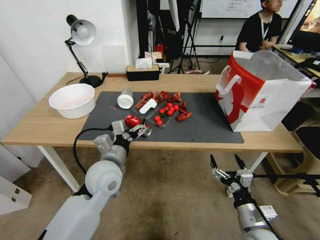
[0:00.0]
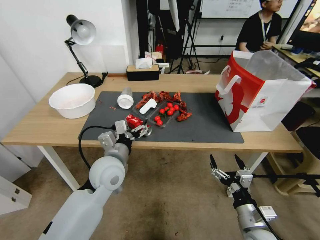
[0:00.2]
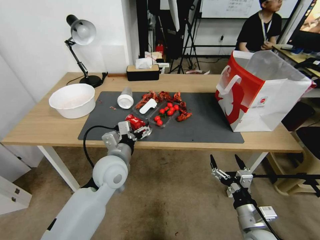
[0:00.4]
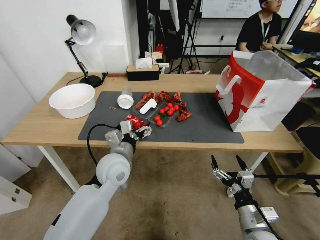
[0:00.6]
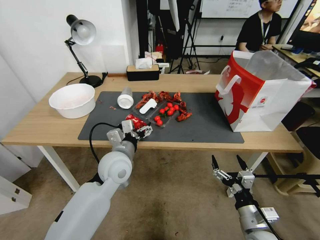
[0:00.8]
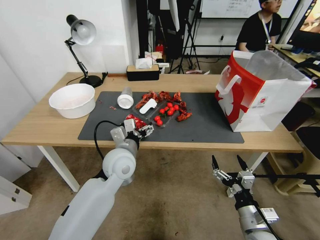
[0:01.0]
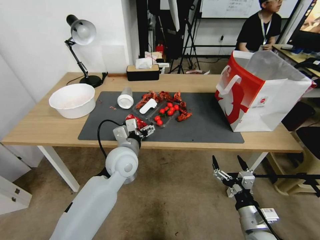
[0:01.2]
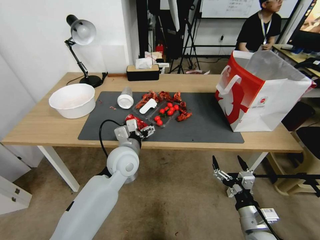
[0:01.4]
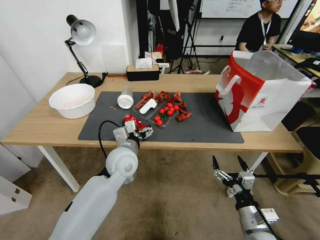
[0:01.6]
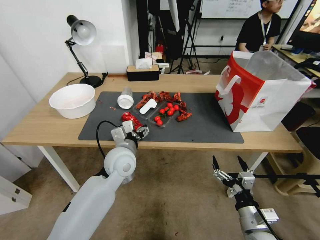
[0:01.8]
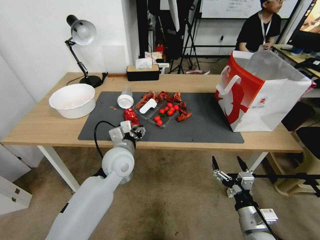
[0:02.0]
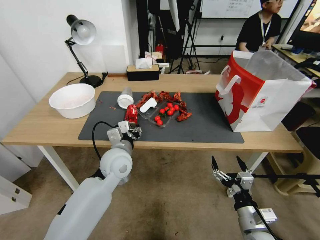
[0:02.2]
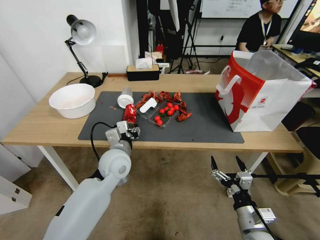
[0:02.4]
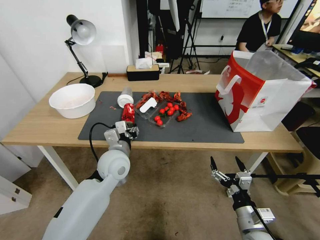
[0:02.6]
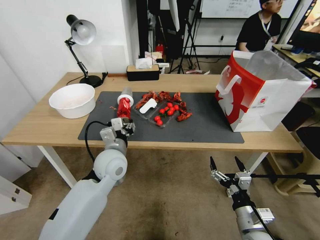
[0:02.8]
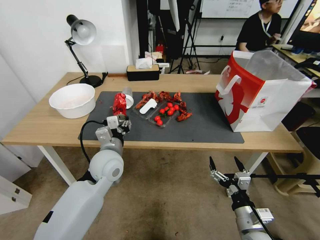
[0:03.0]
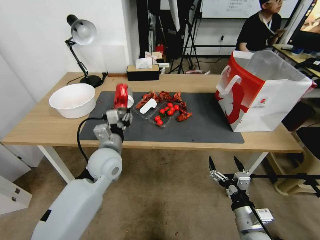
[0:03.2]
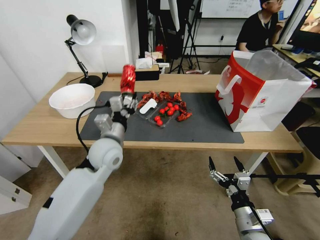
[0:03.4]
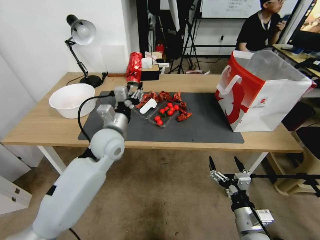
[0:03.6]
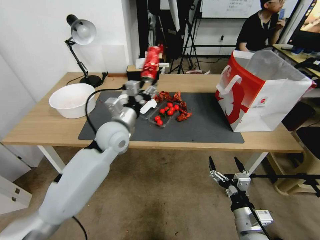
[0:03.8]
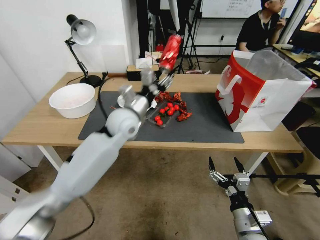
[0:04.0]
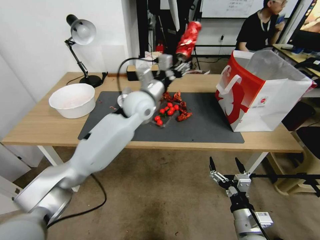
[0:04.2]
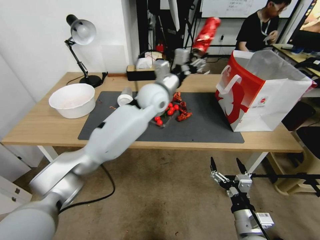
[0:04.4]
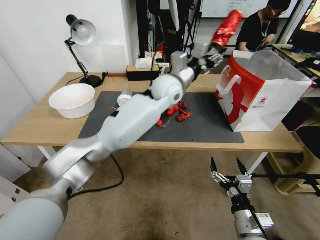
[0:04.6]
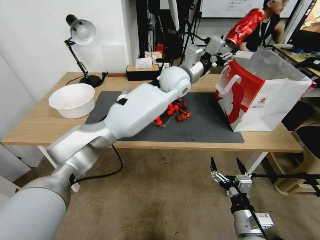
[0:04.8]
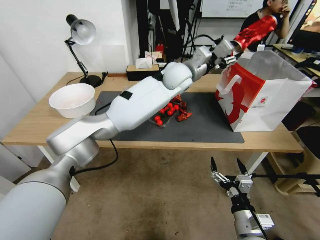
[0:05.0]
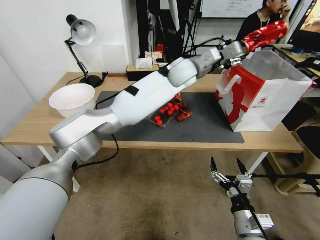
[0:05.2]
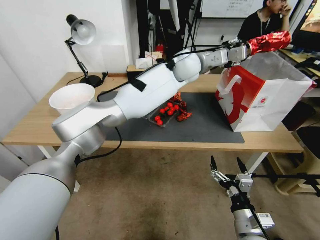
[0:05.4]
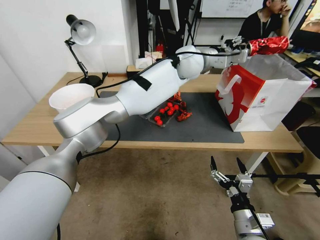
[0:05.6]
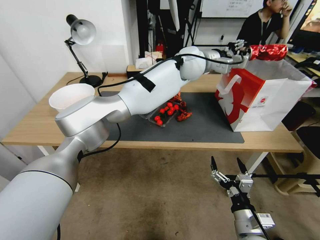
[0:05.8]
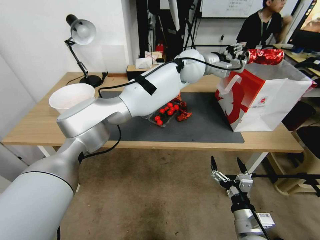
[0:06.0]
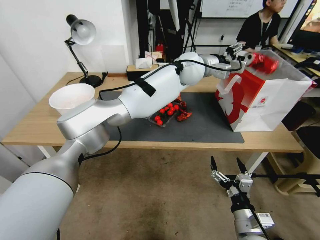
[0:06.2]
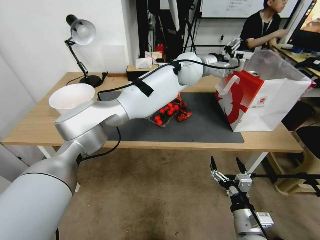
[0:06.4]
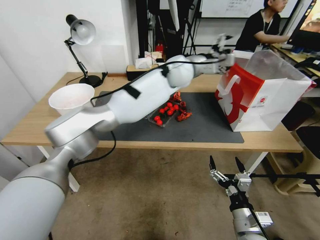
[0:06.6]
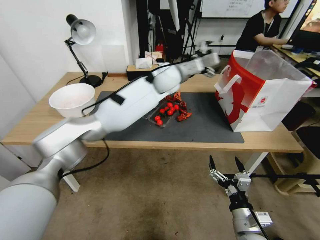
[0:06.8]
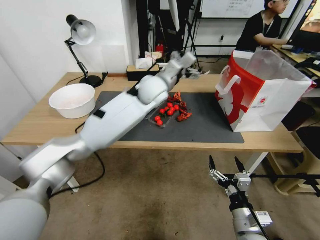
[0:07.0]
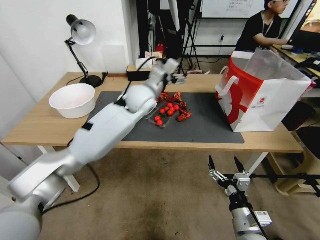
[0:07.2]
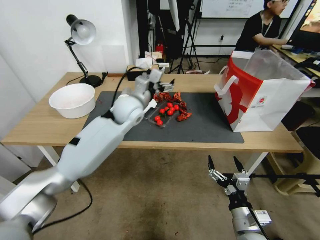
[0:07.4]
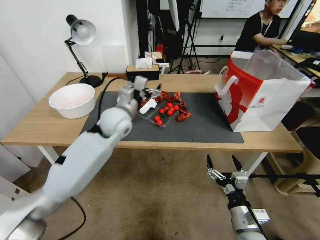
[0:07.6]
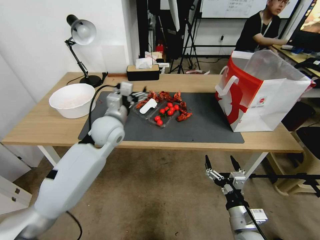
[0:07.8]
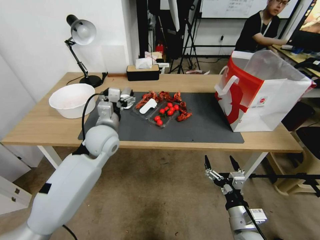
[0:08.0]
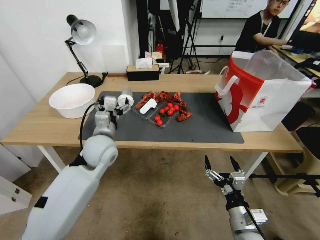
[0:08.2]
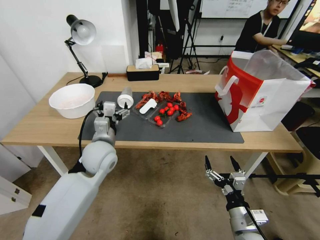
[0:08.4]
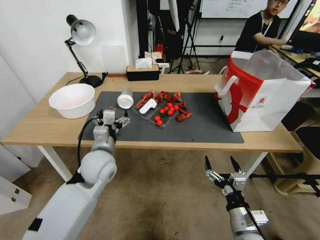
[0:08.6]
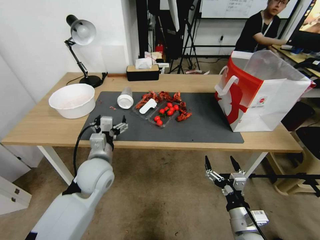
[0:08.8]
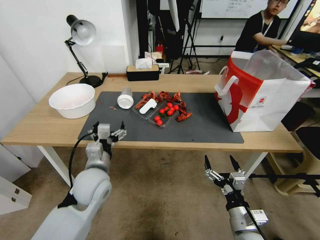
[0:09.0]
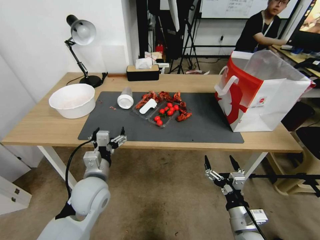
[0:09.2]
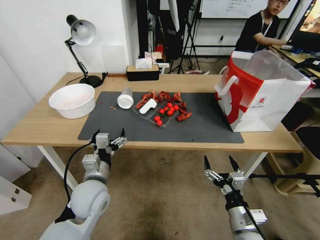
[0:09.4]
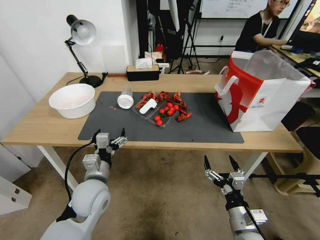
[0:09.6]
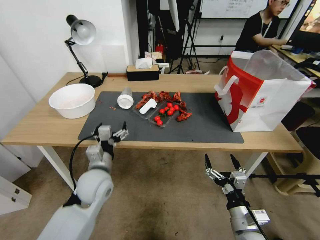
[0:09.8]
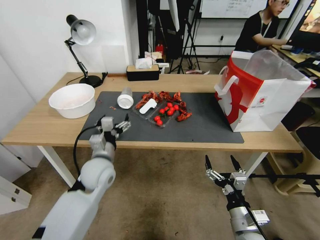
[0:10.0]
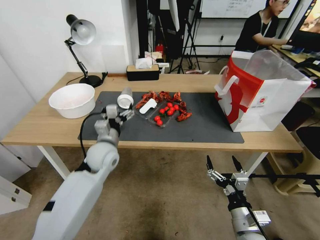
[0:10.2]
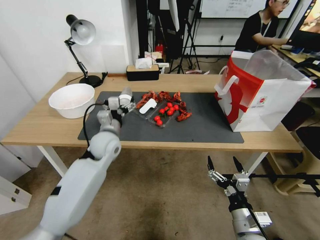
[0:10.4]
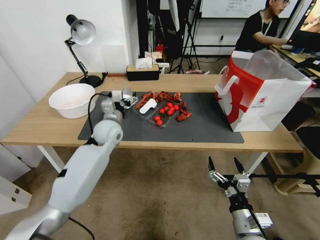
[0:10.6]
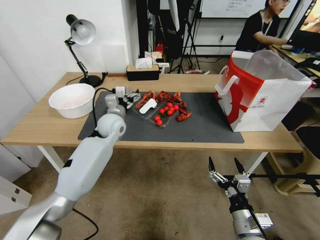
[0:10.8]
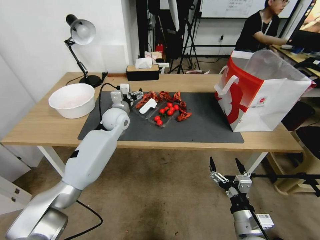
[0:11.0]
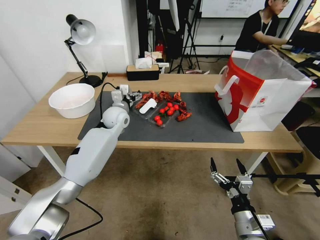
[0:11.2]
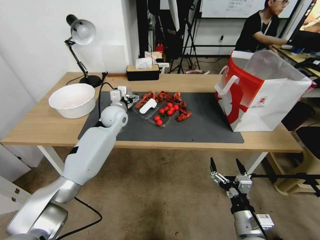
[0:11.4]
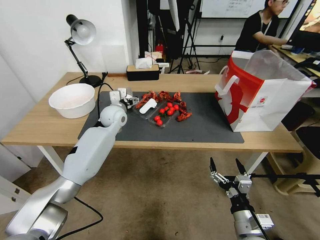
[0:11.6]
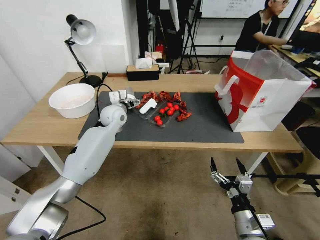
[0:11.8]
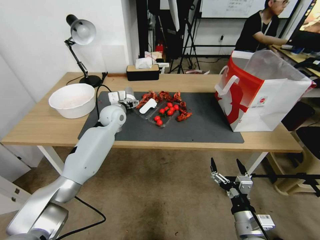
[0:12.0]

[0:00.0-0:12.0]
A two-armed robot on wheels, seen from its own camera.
0:00.0 to 0:01.6: The left gripper travels forward by some 5 cm.
0:01.6 to 0:03.0: The left gripper closes.
0:03.0 to 0:04.4: The left gripper is displaced forward, upward and to the right by approximately 25 cm.
0:04.4 to 0:06.0: The left gripper moves to the right, forward and upward, about 15 cm.
0:06.0 to 0:07.6: The left gripper travels to the left, backward and downward by approximately 30 cm, and opens up.
0:07.6 to 0:09.0: The left gripper is displaced backward and downward by roughly 20 cm.
0:09.0 to 0:10.4: The left gripper is displaced forward by some 10 cm.
0:10.4 to 0:12.0: The left gripper travels forward by about 15 cm.

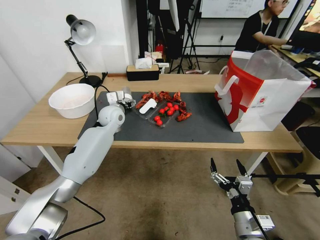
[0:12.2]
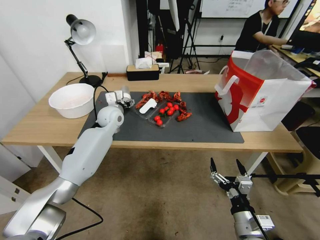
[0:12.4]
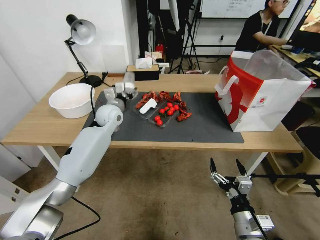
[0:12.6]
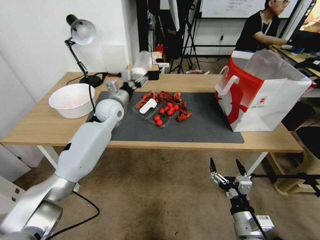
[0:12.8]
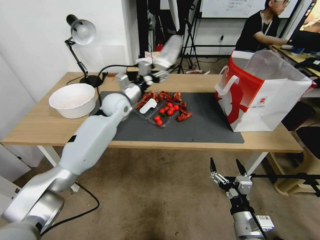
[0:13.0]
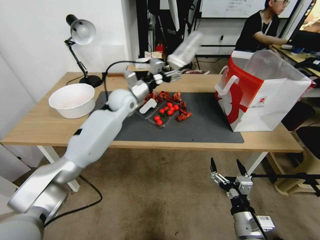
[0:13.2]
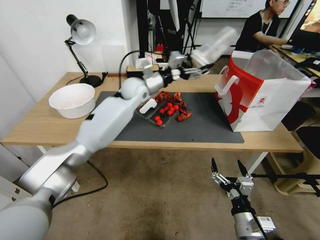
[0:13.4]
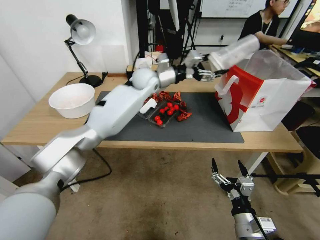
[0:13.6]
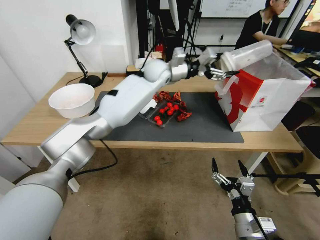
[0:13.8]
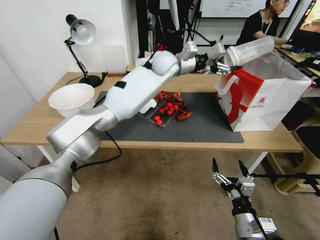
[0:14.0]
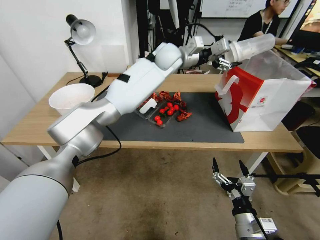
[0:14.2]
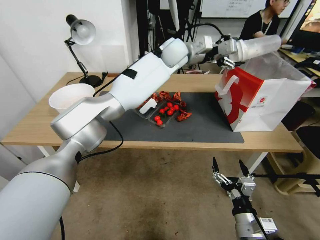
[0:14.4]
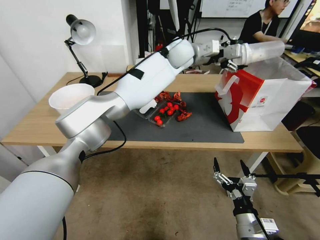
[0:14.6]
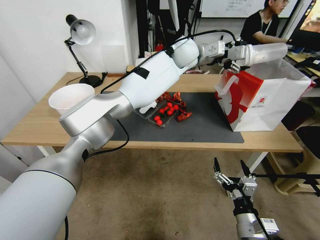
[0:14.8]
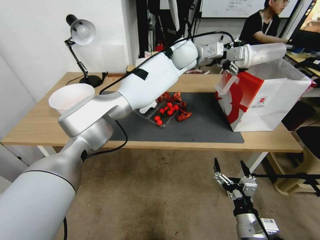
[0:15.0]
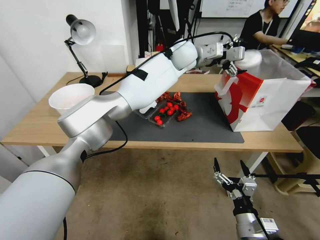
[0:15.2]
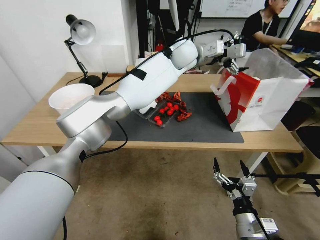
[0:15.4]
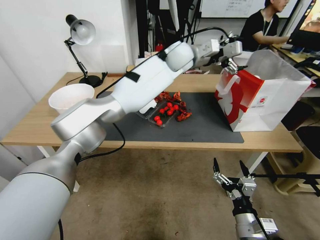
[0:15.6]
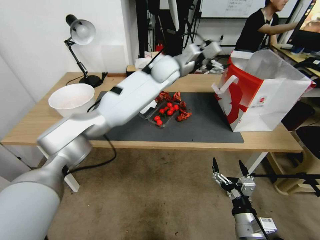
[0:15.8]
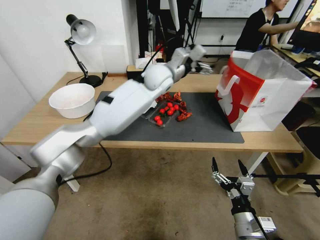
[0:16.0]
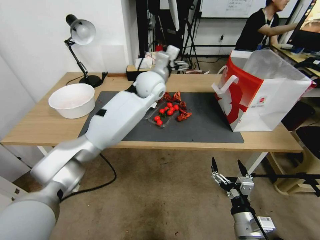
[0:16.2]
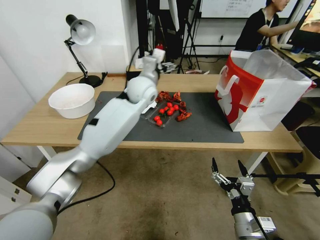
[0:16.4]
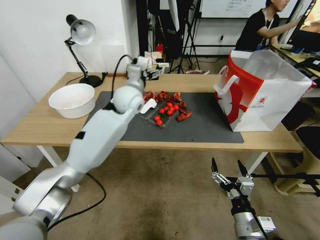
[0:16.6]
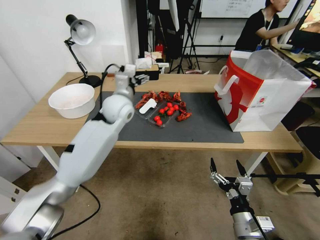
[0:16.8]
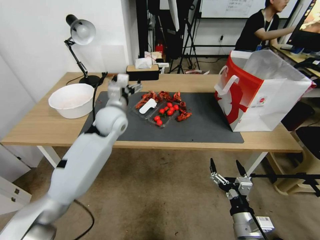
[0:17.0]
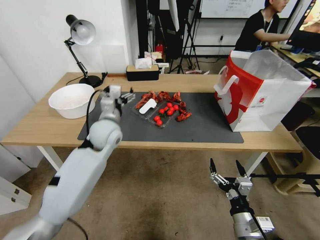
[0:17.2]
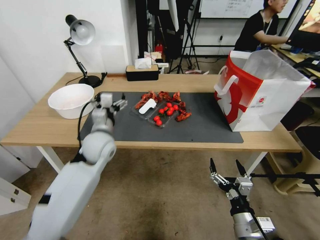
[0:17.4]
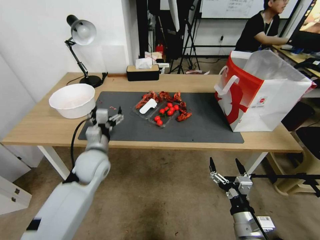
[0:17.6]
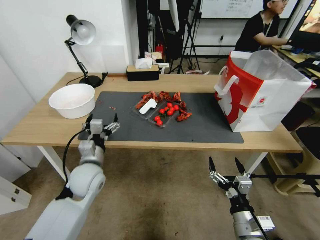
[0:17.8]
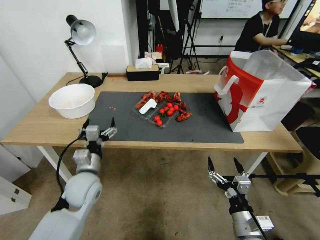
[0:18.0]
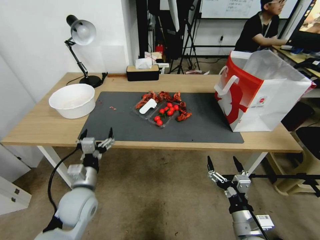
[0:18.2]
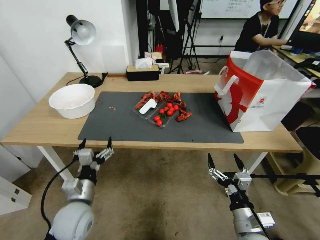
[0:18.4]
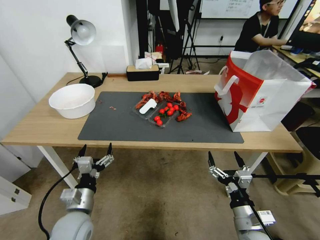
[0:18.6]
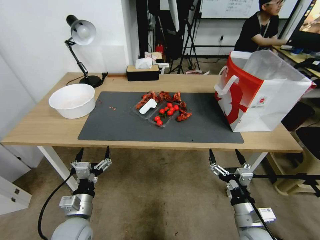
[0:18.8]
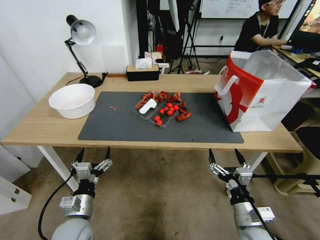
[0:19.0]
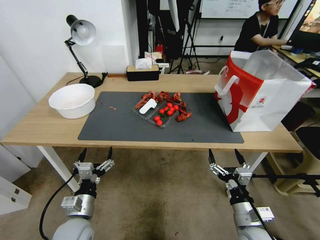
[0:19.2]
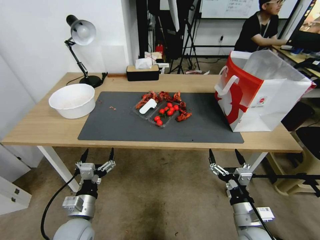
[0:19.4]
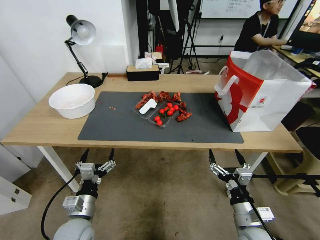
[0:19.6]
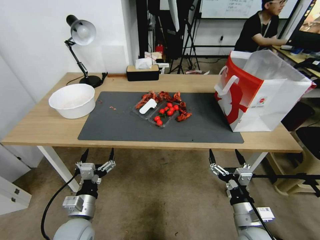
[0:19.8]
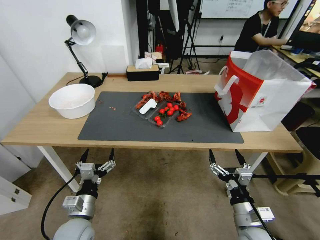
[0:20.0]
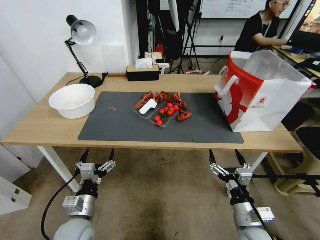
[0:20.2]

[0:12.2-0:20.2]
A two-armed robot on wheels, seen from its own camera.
0:12.2 to 0:13.8: The left gripper goes roughly 25 cm to the right and upward.
0:13.8 to 0:15.4: The left gripper travels to the right and upward by roughly 10 cm, and opens its fingers.
0:15.4 to 0:17.0: The left gripper shifts some 30 cm to the left, downward and backward.
0:17.0 to 0:18.6: The left gripper goes roughly 25 cm backward and downward.
0:18.6 to 0:20.2: The left gripper travels backward by roughly 5 cm.
